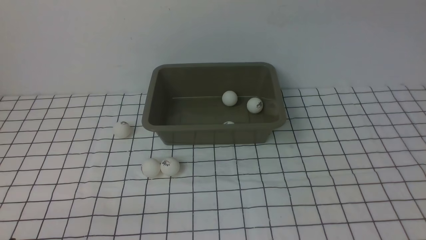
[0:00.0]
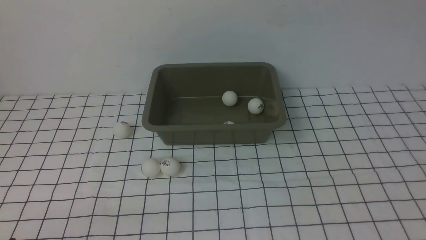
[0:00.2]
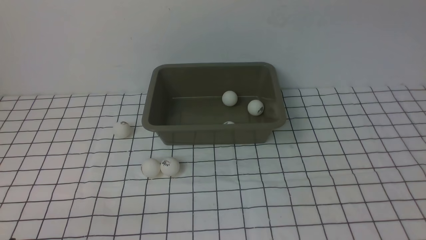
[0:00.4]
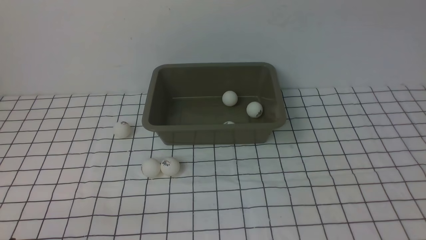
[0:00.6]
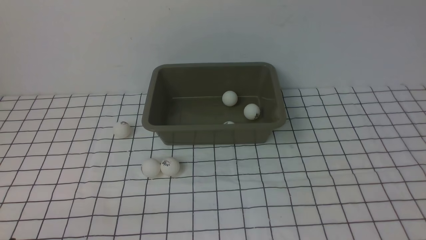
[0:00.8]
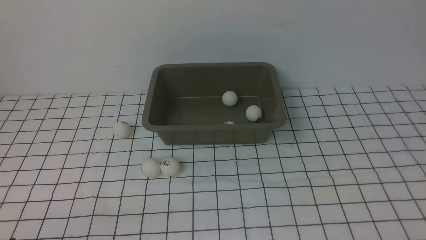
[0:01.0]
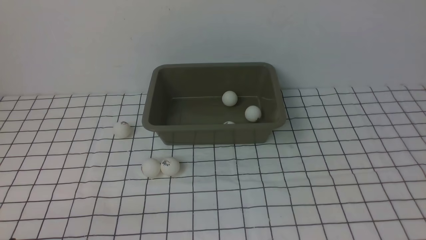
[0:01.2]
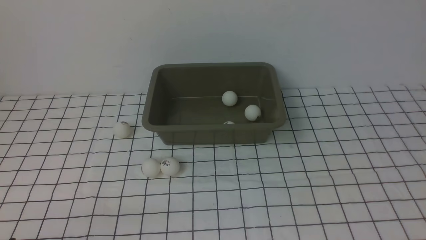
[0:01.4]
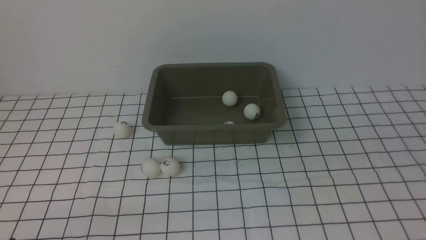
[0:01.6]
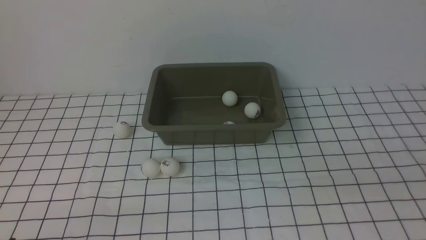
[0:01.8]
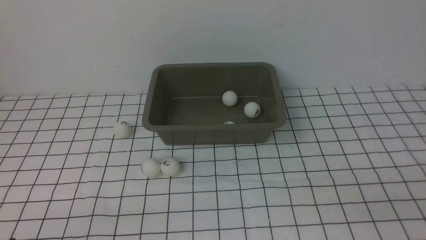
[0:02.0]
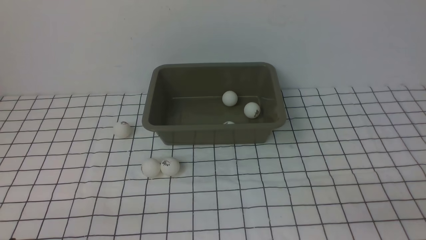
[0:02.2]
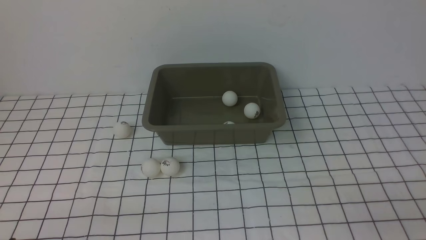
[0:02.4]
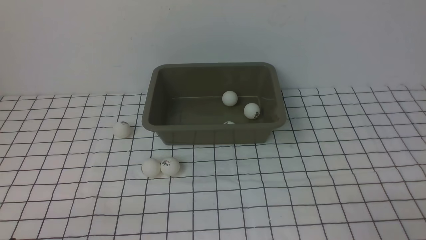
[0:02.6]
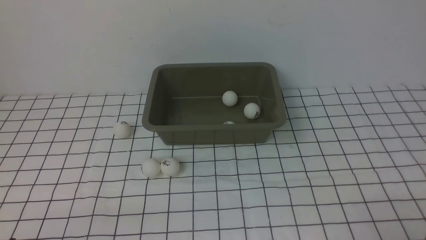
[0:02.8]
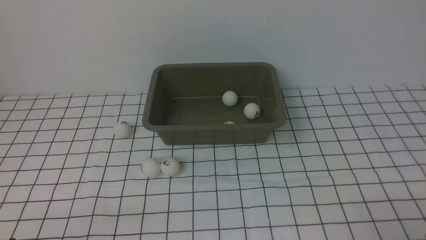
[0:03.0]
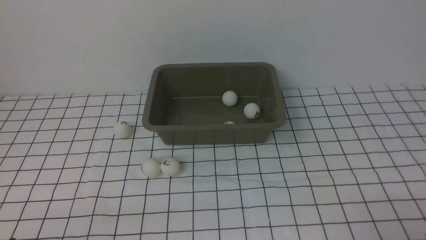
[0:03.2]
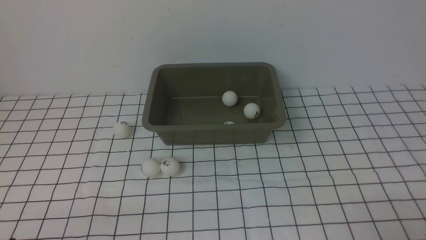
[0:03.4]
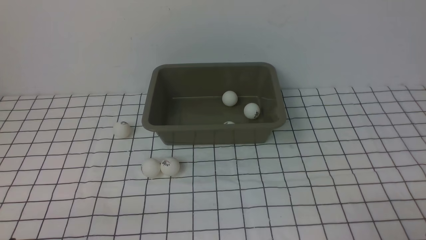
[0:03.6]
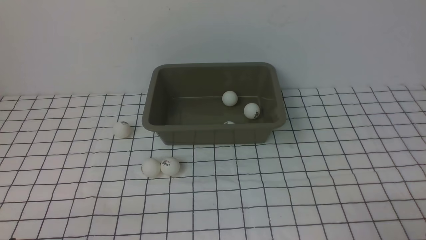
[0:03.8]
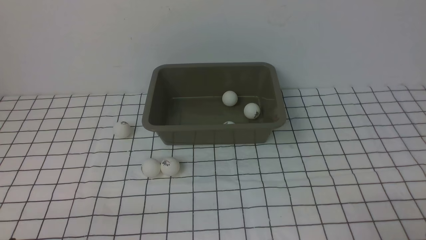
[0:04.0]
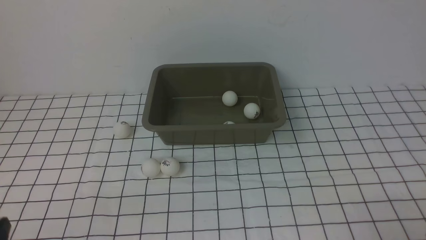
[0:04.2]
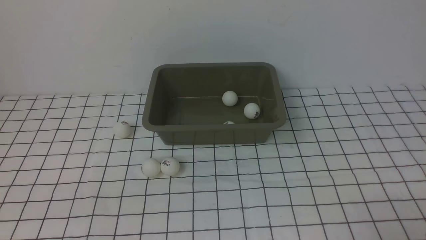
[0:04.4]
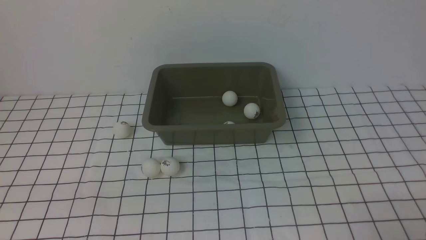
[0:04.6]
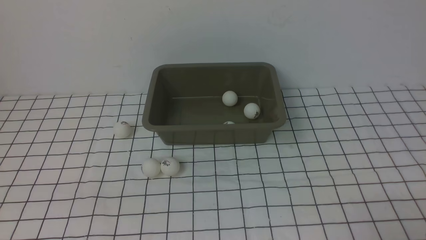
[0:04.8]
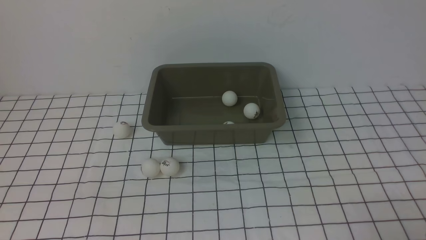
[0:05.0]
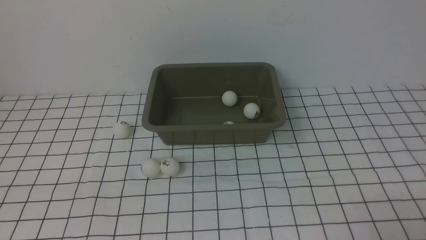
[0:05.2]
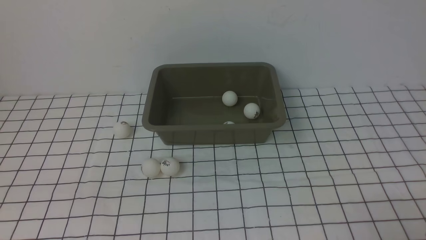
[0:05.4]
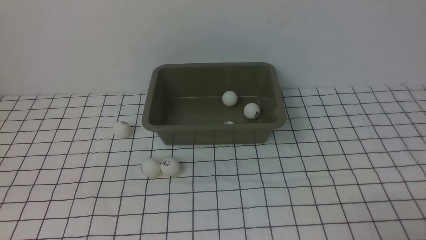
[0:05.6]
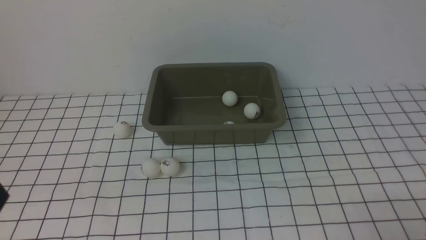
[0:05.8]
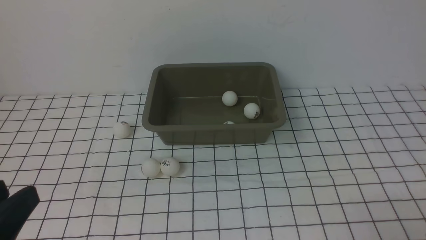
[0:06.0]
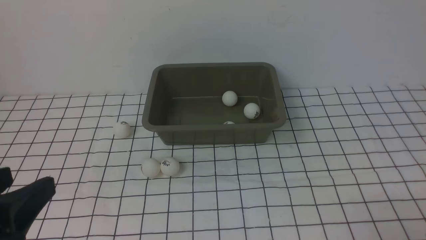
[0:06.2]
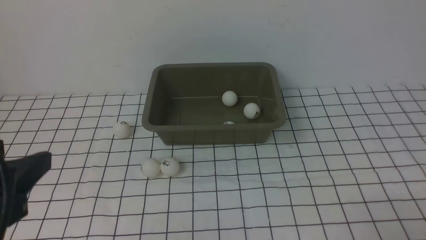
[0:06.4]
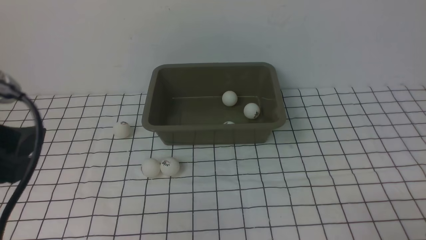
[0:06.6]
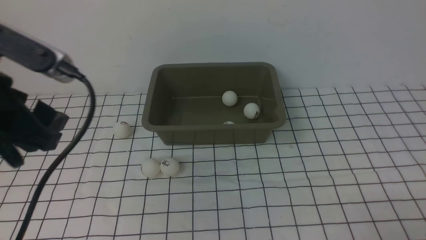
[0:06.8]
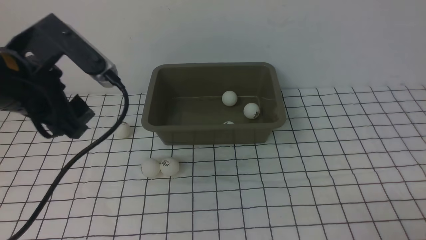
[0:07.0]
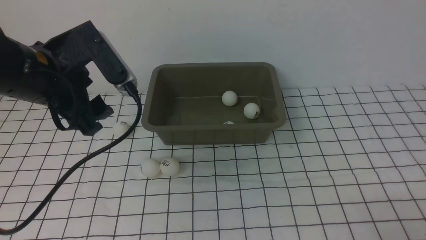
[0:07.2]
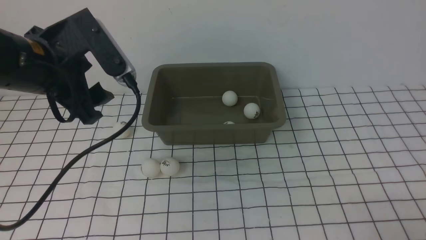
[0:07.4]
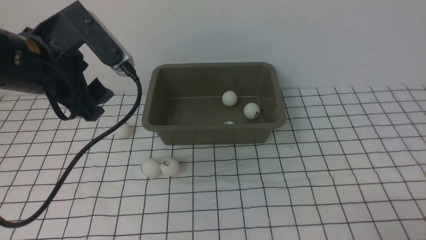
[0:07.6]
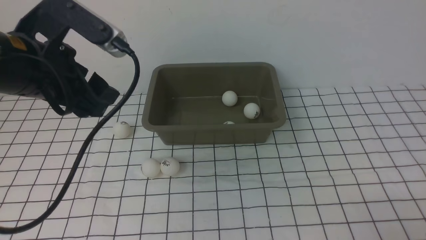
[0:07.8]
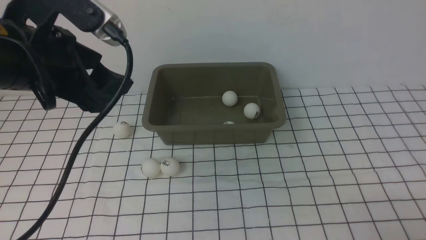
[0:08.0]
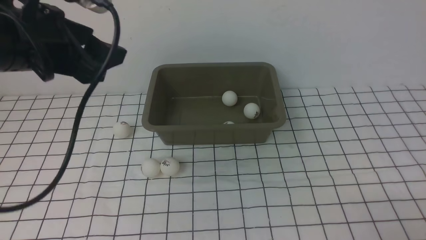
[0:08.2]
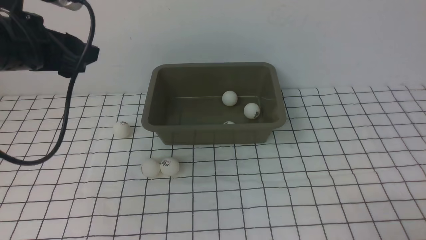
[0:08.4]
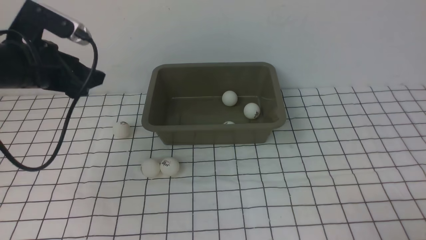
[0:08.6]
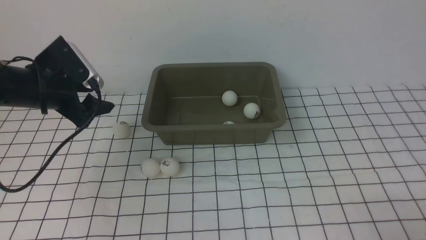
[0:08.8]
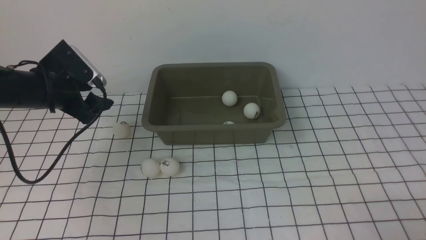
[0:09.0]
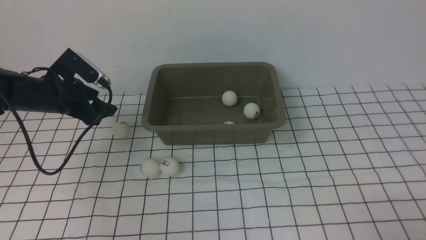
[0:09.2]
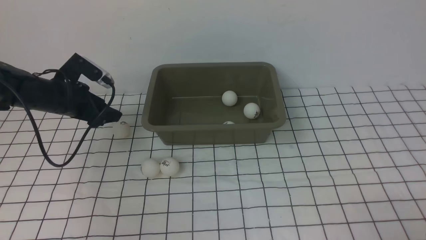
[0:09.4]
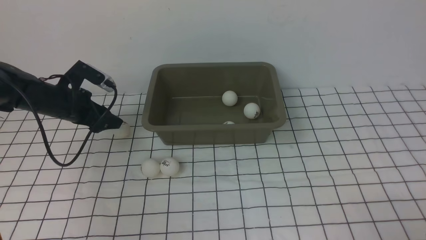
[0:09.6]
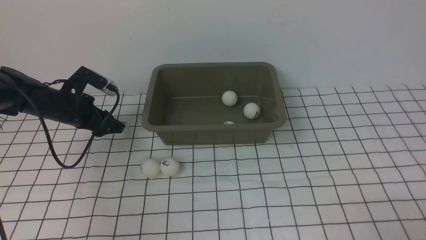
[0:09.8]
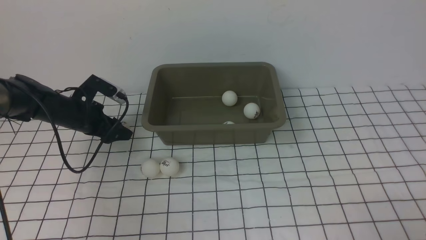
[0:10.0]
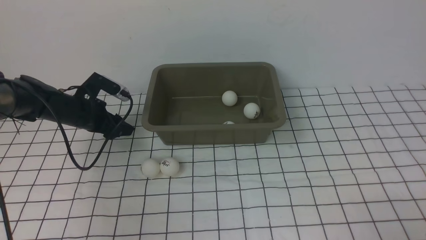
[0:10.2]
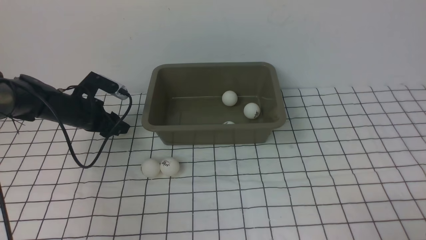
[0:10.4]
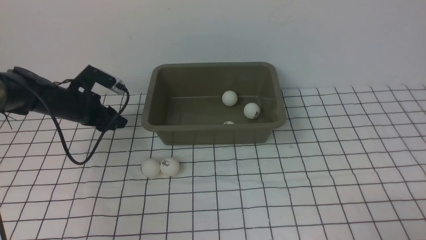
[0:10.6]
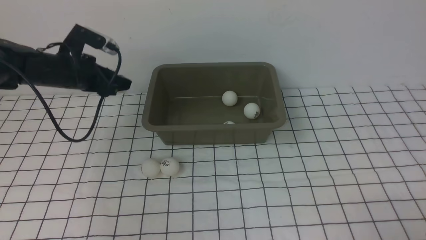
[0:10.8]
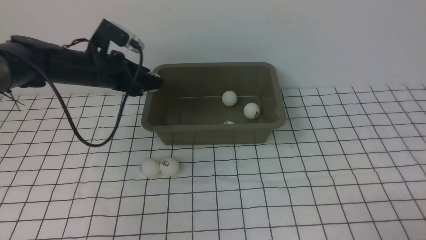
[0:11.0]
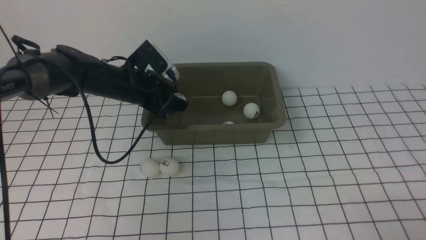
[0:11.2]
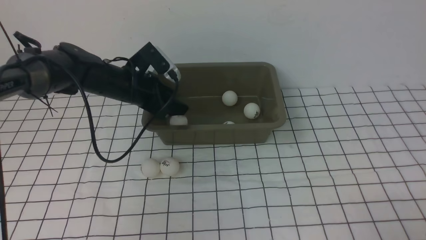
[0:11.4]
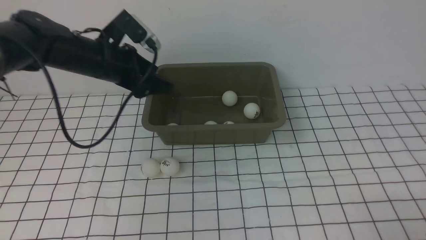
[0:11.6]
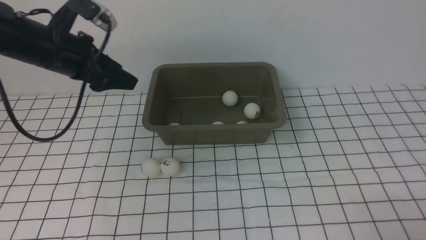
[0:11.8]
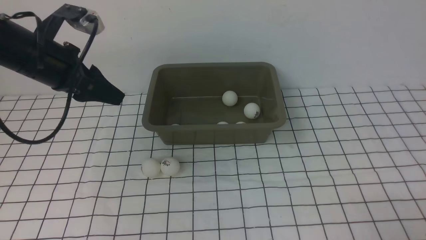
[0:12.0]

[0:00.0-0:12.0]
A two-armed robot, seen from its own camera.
Step, 0:00.0 to 0:10.8: use the left arm to clamp the table tennis ball closest to it.
Step, 0:11.2 to 0:11.6: use the left arm to put the table tennis ball into the box.
0:04.4 to 0:06.0: The left gripper is displaced upward by approximately 10 cm, and opens its fingers.
0:06.0 to 0:07.6: The left gripper heads forward, covering approximately 15 cm.
0:07.6 to 0:09.0: The left gripper heads downward, forward and to the left, covering approximately 30 cm.
0:09.0 to 0:10.4: The left gripper is displaced to the right and upward by about 10 cm, and closes its fingers.
0:10.4 to 0:12.0: The left gripper travels backward and upward by some 15 cm.

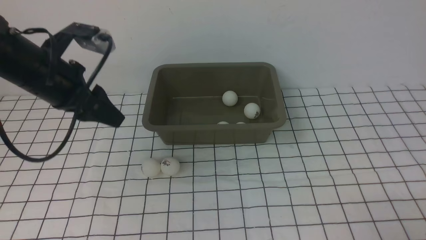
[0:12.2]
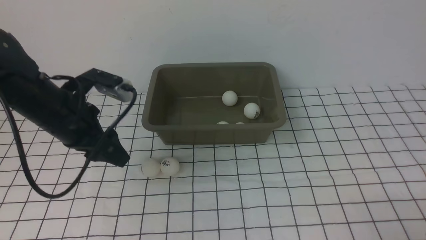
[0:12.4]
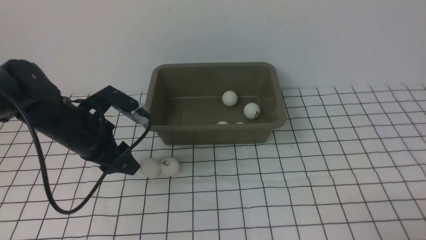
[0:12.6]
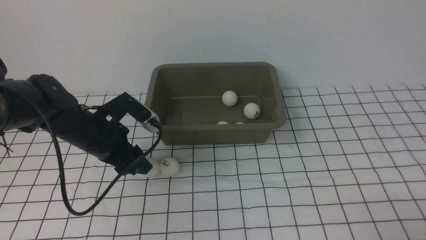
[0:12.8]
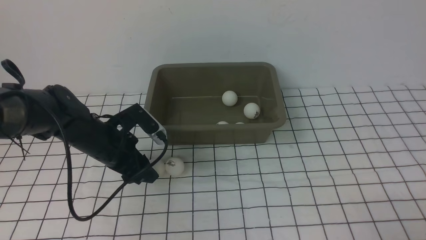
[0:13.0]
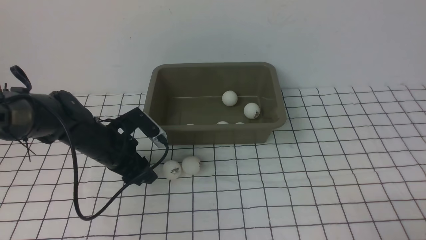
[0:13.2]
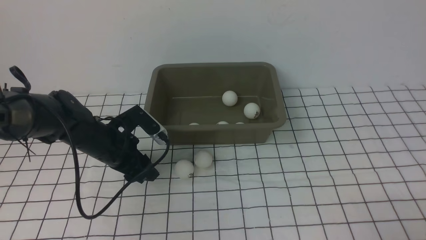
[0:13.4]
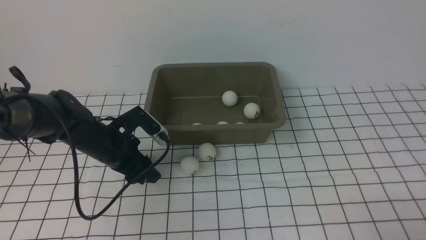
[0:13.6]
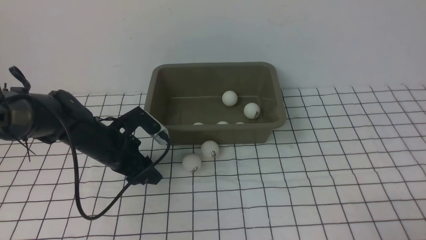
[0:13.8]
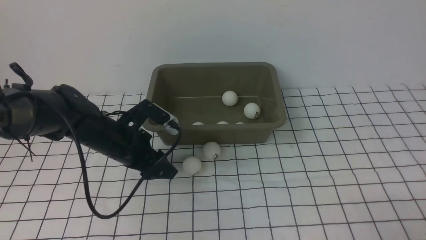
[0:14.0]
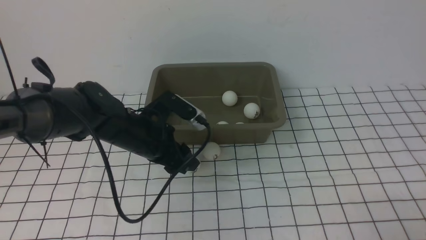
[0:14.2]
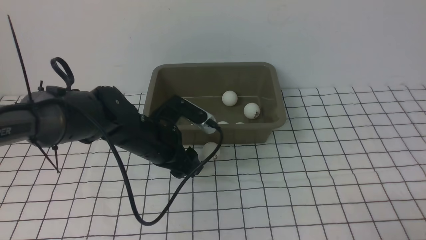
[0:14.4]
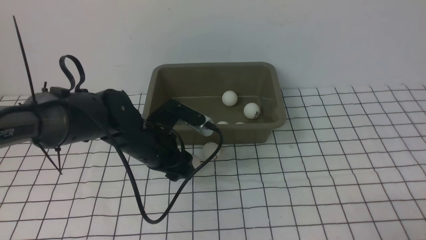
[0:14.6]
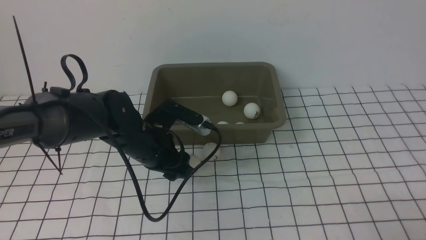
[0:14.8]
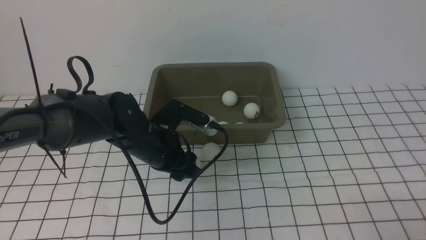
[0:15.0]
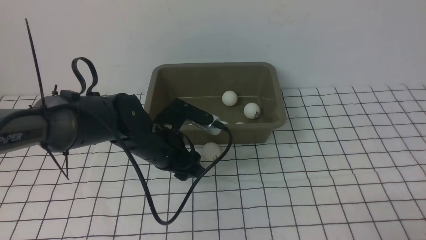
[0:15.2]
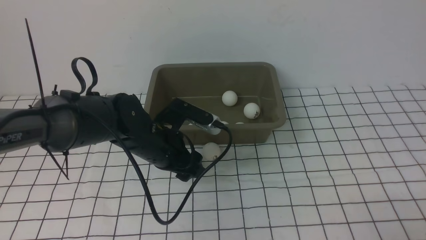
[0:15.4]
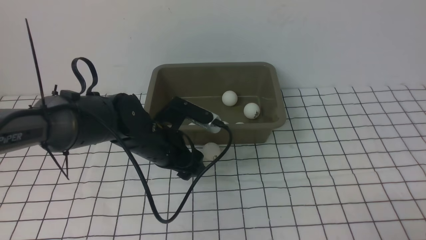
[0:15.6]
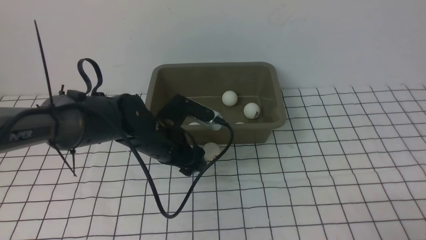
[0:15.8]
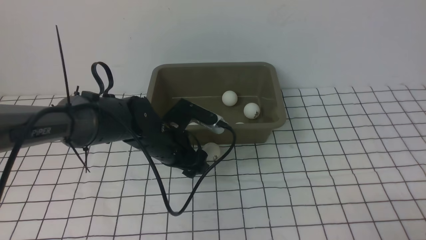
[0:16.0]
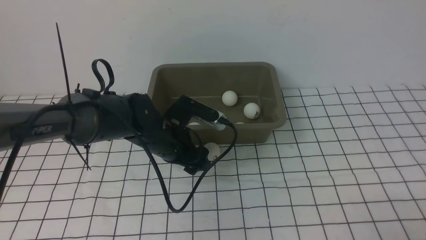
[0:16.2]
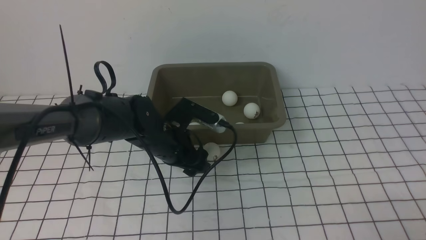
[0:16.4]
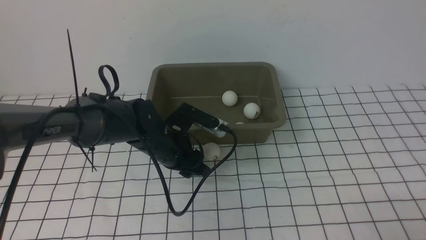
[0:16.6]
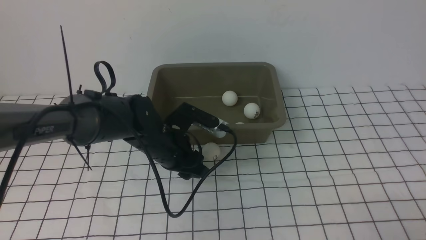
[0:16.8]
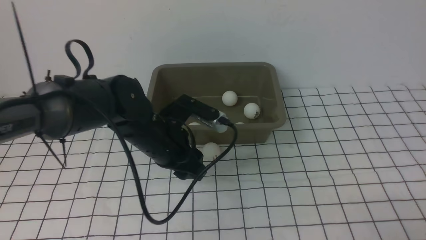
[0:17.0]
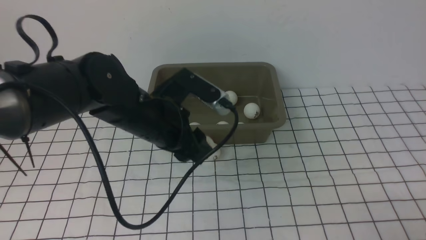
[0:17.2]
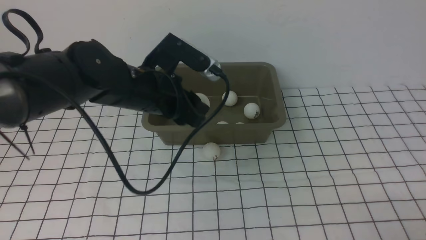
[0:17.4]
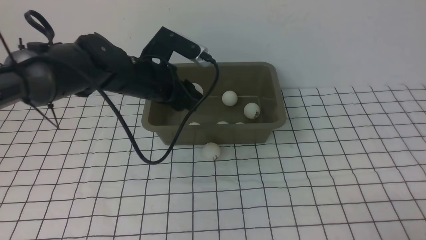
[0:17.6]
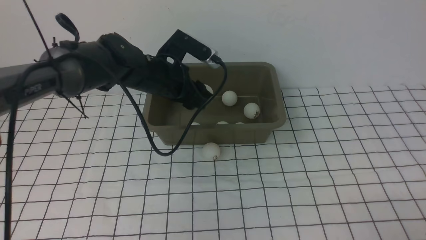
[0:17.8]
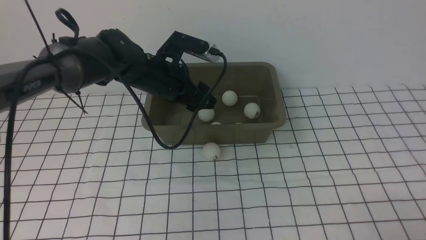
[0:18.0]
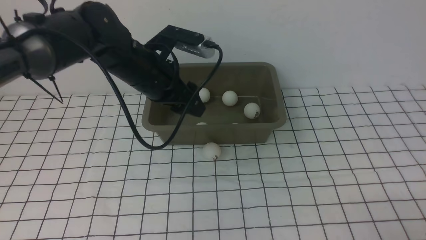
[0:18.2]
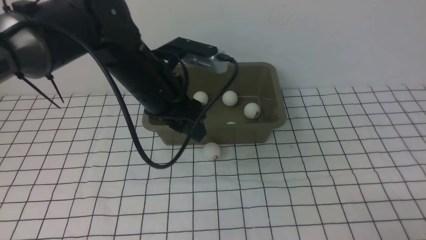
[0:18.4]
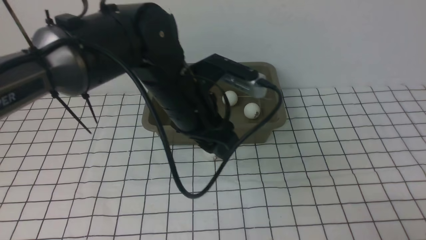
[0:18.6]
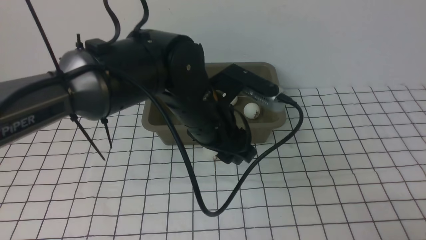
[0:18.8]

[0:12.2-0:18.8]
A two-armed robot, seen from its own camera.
Step, 0:12.2 to 0:17.0: use the left arm to clamp the table tennis ball closest to it.
Step, 0:17.2 to 0:18.0: use the left arm to put the table tennis ball into the box.
0:12.2 to 0:13.8: The left gripper heads downward and to the right, covering some 15 cm.
0:13.8 to 0:15.4: The left gripper moves to the right, some 10 cm, and opens.
0:15.4 to 0:17.2: The left gripper travels upward by approximately 10 cm, and closes.
0:17.2 to 0:18.8: The left gripper travels to the right by roughly 5 cm, and reaches roughly 10 cm forward, then returns.
